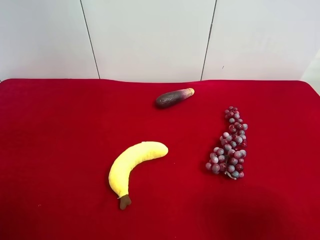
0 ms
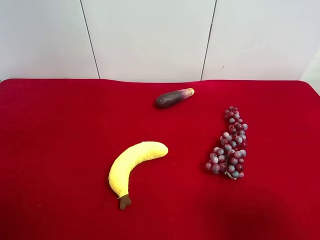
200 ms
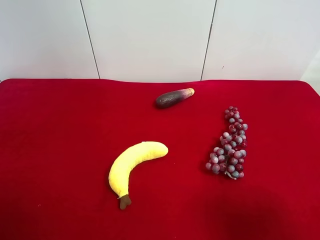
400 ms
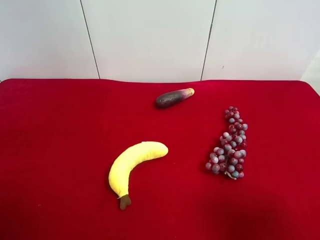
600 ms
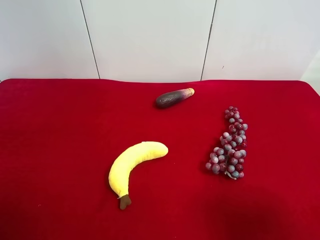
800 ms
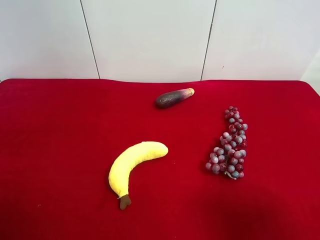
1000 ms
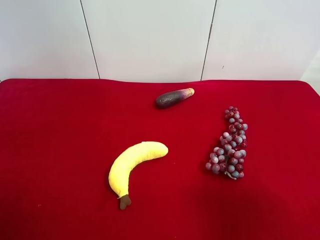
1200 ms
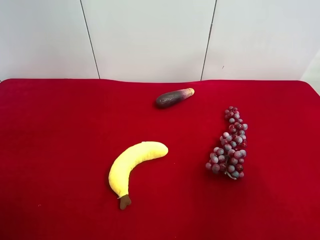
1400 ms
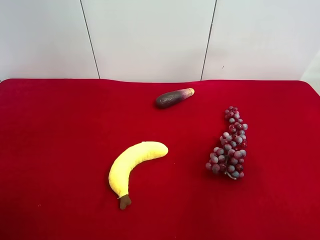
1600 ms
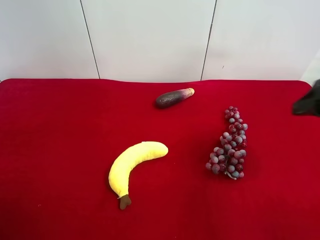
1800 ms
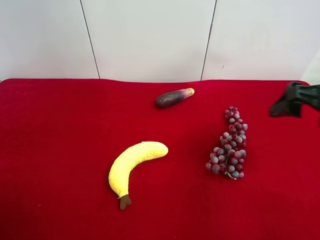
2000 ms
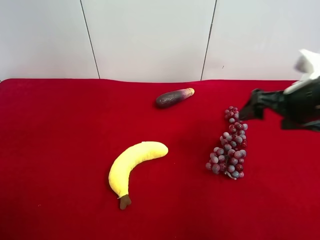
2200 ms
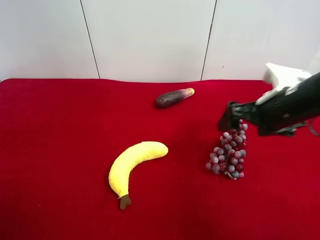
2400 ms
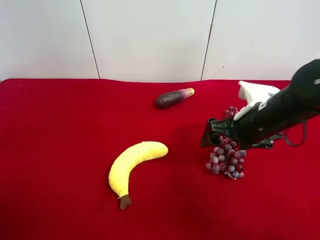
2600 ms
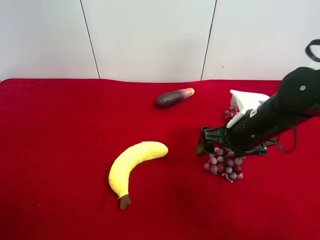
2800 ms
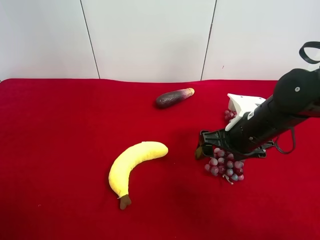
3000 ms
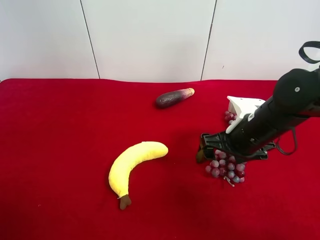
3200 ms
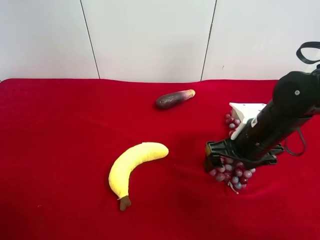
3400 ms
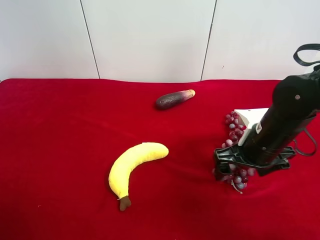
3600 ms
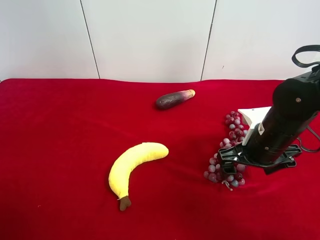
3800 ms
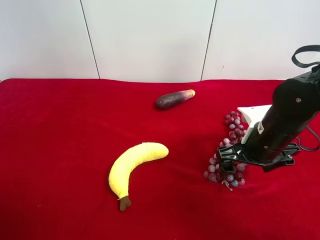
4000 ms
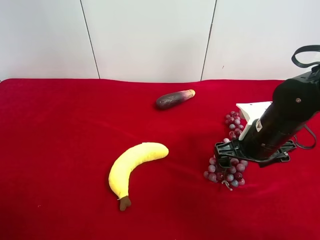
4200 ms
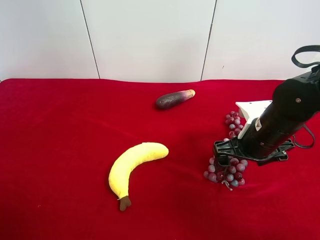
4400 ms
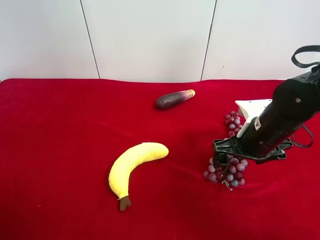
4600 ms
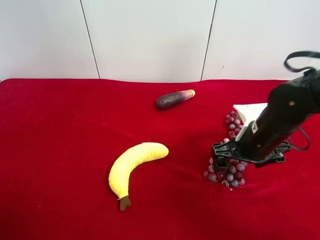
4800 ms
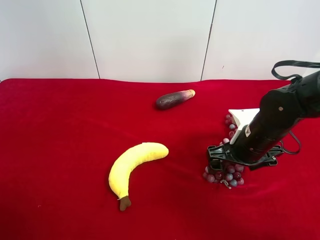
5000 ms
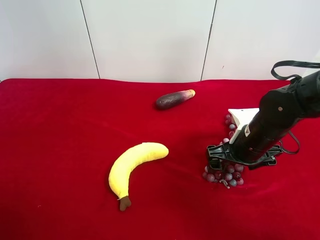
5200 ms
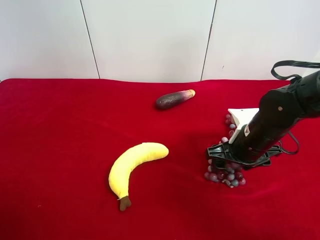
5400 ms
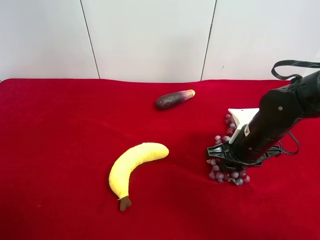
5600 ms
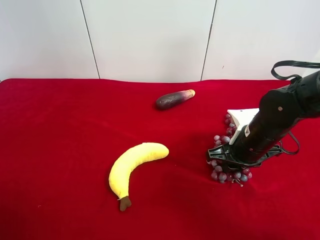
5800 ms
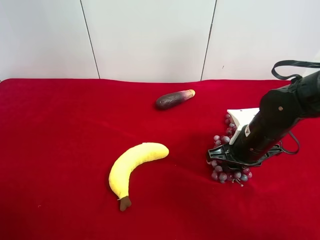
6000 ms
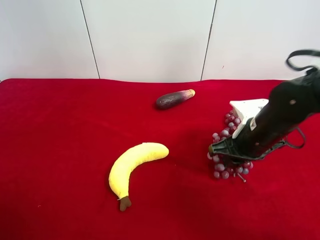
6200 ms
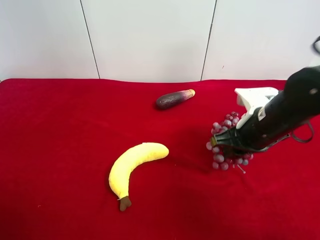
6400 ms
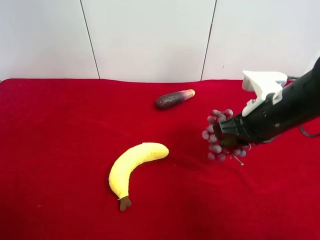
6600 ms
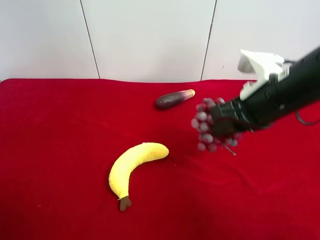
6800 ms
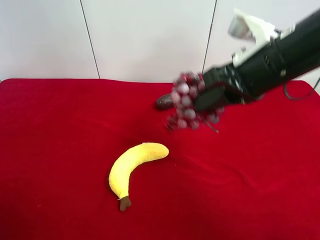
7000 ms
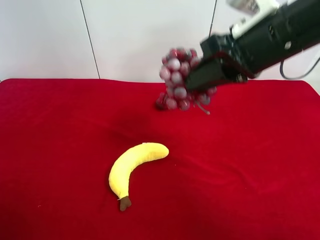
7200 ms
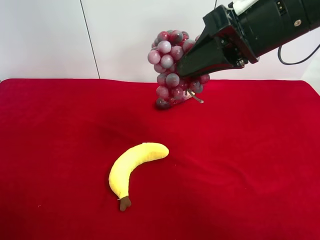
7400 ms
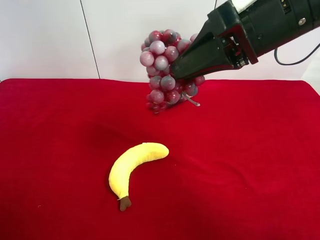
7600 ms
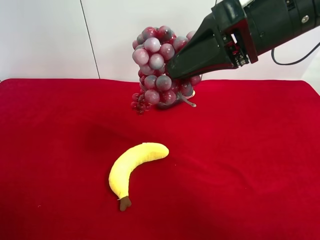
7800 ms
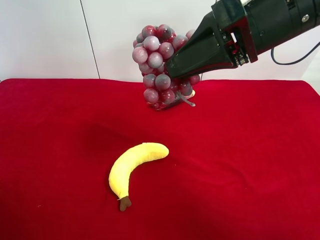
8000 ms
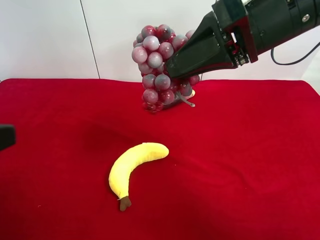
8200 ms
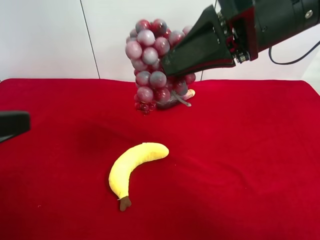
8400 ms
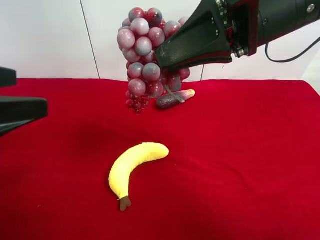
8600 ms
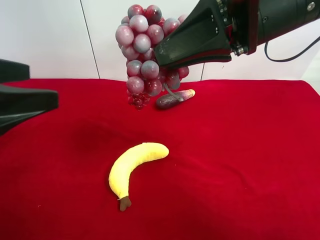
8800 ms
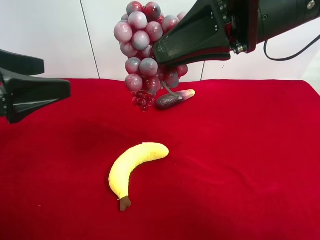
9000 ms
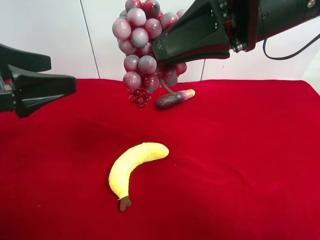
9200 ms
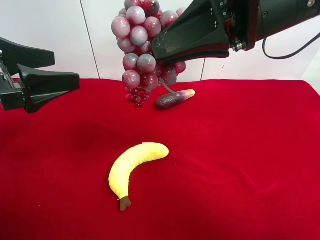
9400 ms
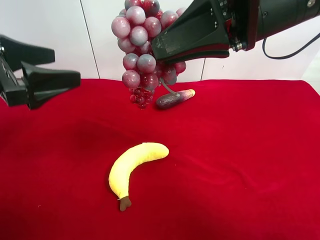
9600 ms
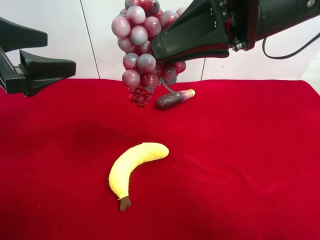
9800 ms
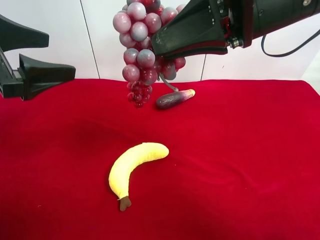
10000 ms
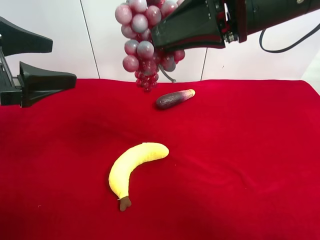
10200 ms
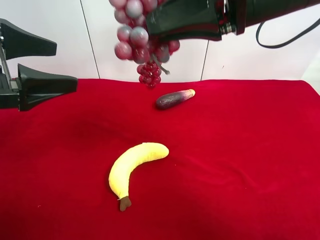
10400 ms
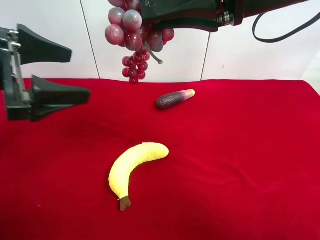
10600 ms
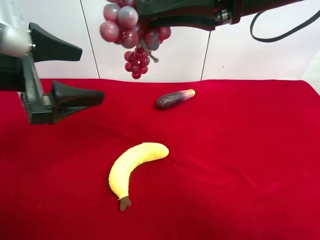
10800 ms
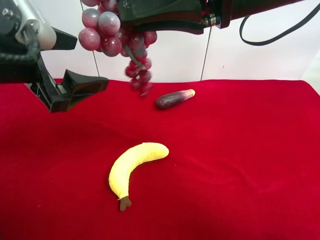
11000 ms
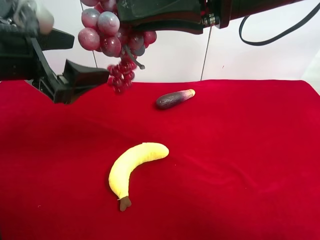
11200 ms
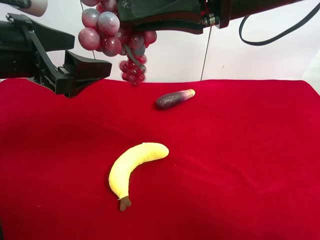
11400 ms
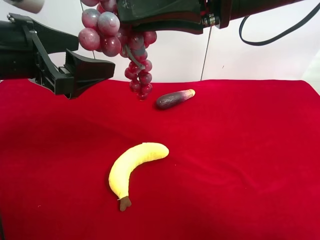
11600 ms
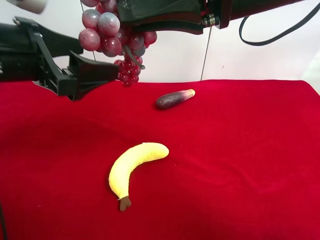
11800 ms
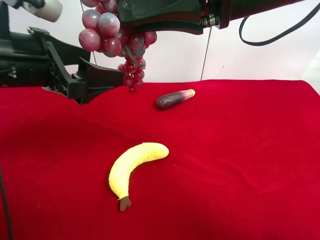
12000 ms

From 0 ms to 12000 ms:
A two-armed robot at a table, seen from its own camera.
Task of the whole recording: use the right gripper to pick up the item and transfer it from the right gripper to the left gripper.
Step, from 0 ms to 5600 ms: Use the right gripper to grab the grape on the right side of the table.
From 1600 ms to 3000 ms: The right gripper moves downward, forward and to the left, approximately 25 cm.
From 3000 ms to 4400 ms: There are only small adjustments of the grippers.
From 4400 ms to 6000 ms: The right gripper closes.
From 6000 ms to 7600 ms: The right gripper goes some 25 cm upward.
From 7600 ms to 9000 ms: The left gripper moves forward, approximately 15 cm.
From 9000 ms to 10400 ms: There are only small adjustments of the grippers.
From 10400 ms to 12000 ms: The left gripper goes some 5 cm to the right.

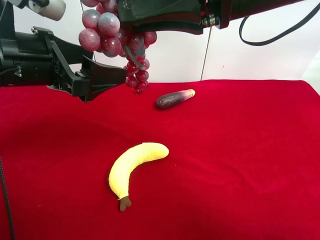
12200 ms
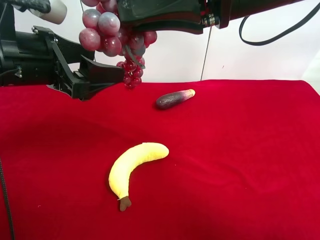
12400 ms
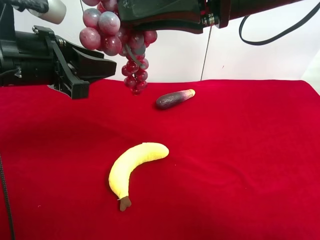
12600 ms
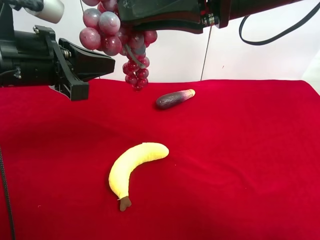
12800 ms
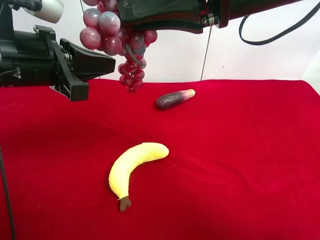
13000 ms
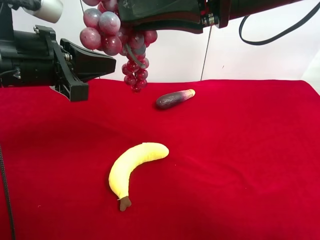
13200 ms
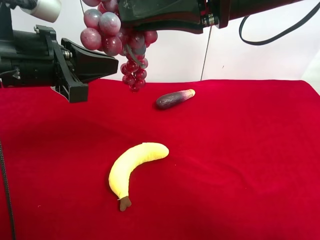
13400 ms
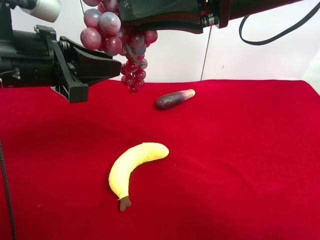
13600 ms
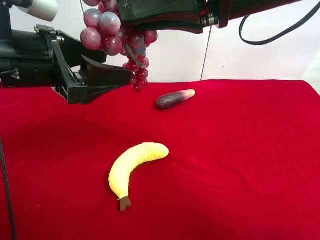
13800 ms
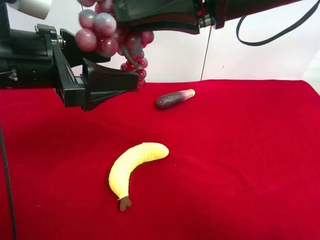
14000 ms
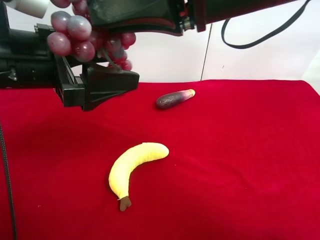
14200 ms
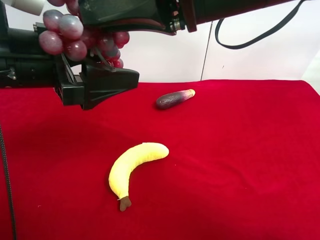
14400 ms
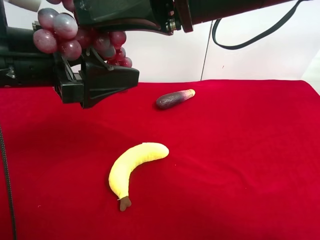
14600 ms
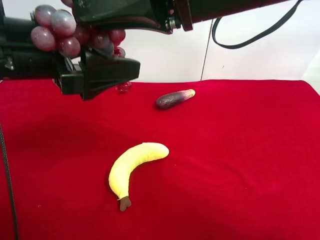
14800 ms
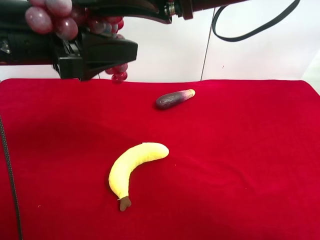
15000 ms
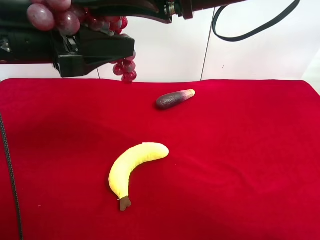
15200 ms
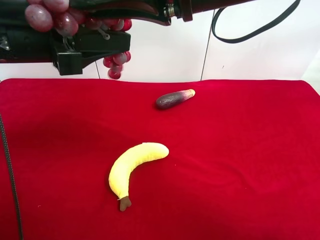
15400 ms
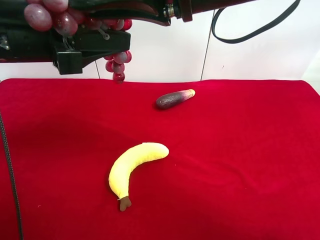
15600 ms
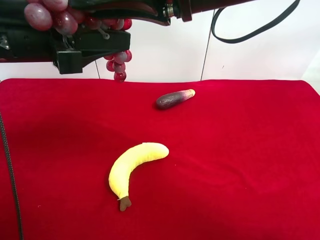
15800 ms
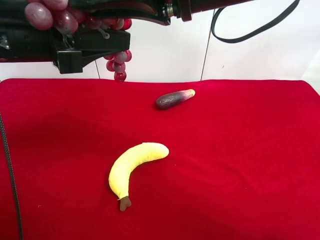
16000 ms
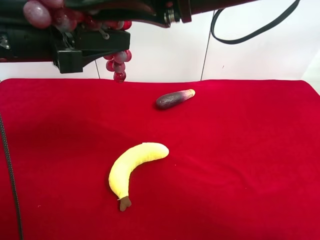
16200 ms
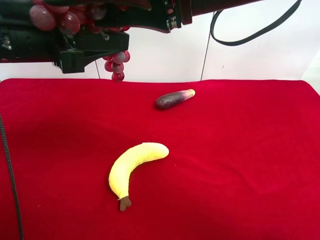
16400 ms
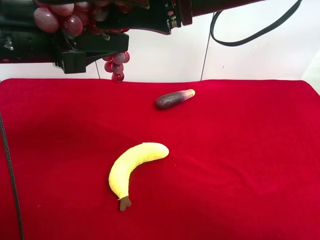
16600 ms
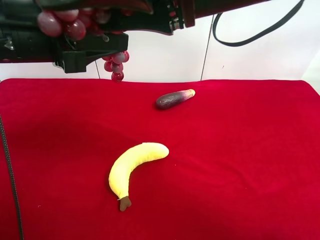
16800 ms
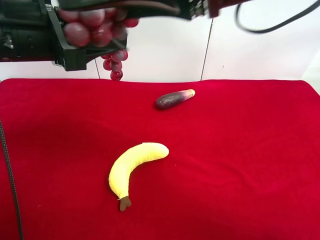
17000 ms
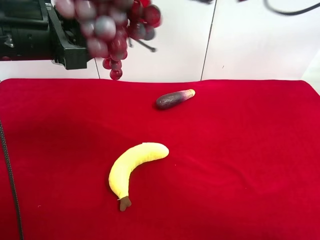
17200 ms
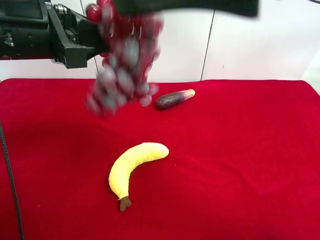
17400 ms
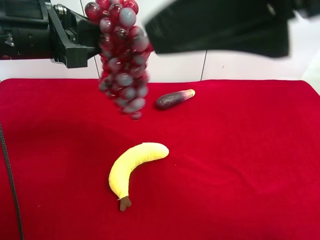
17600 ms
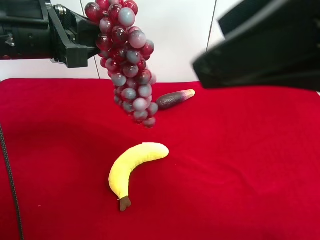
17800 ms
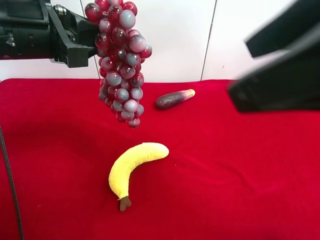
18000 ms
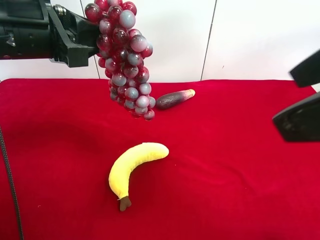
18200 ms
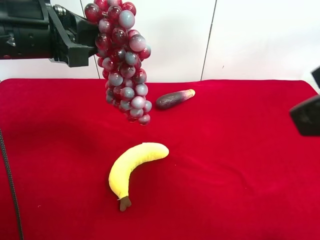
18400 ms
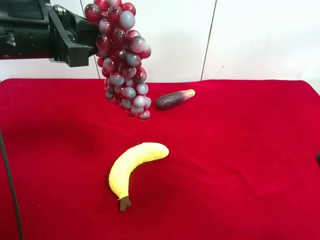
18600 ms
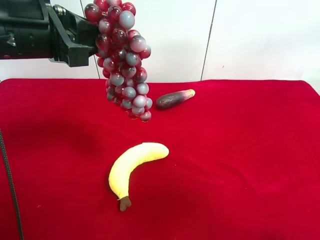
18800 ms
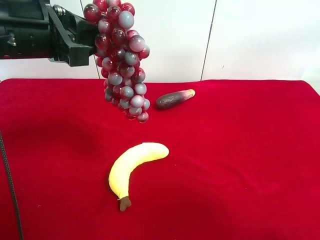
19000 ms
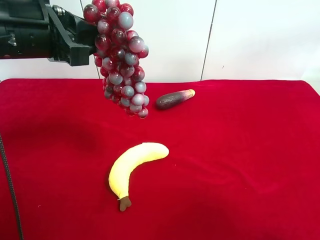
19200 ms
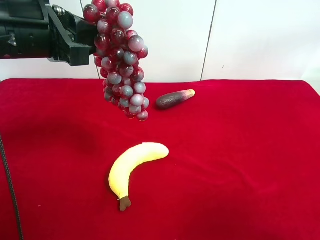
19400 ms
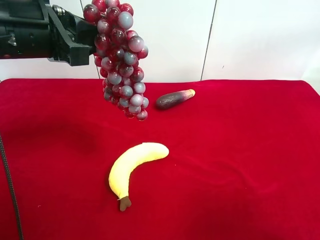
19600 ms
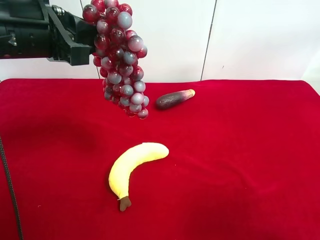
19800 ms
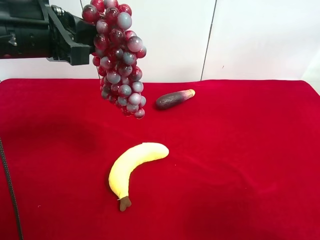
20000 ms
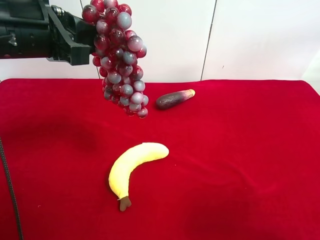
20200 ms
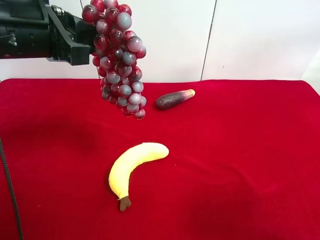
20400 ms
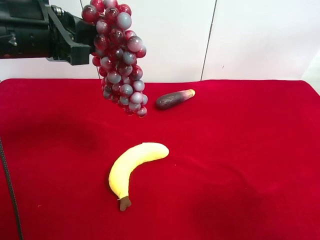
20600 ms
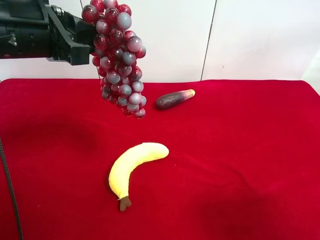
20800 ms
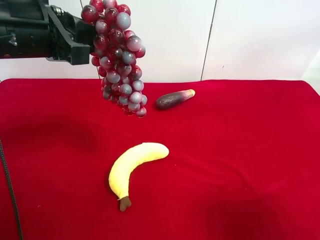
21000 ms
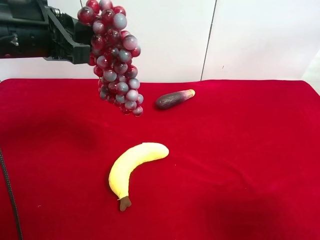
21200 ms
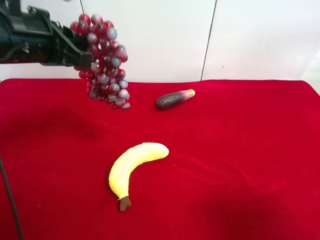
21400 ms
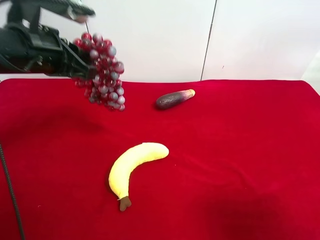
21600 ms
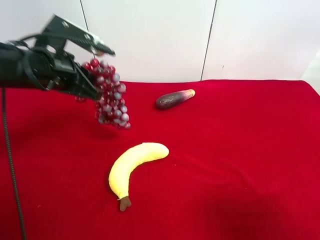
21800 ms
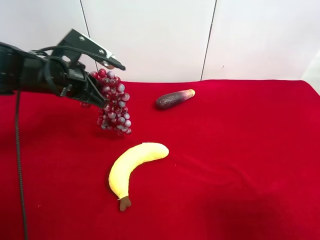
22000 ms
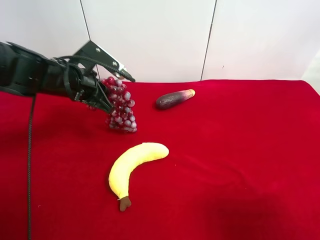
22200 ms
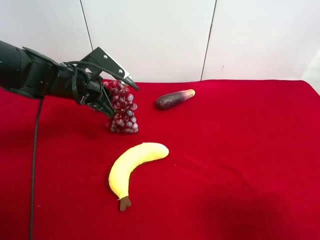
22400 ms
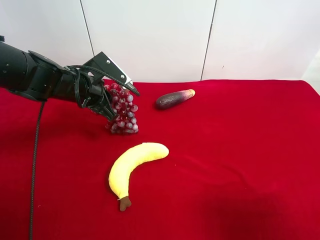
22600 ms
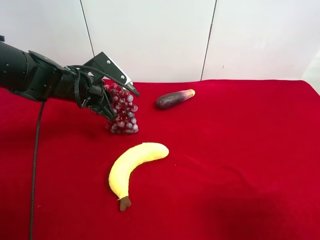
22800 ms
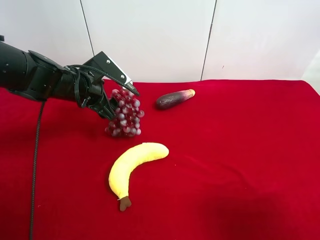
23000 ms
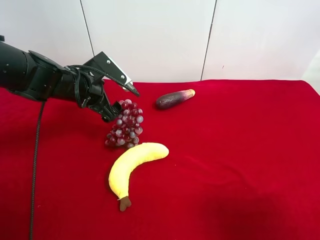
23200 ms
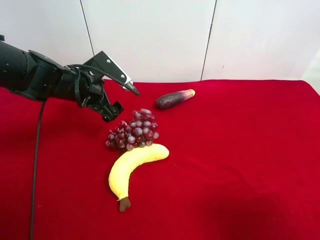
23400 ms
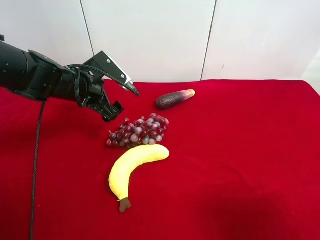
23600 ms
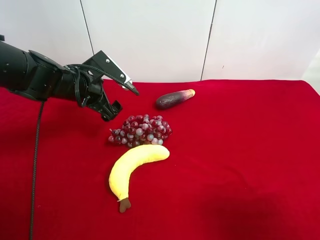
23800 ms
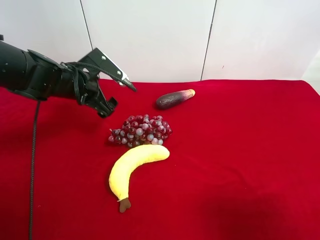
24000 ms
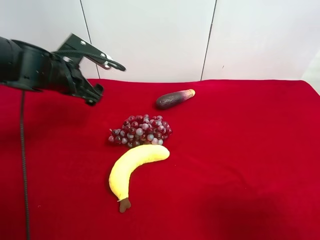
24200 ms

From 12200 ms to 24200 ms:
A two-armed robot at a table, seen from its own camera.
Task of the whole recording: use the right gripper to pick up the item and transfer it from the right gripper to the left gripper.
Step, from 12200 ms to 17200 ms: Pass the grape to the left gripper.
Step, from 17400 ms to 23400 ms: The left gripper places grape on the left side of the table.
From 12200 ms to 13800 ms: The left gripper closes, then reopens.
From 13800 ms to 15200 ms: The left gripper closes up.
From 15200 ms to 16600 ms: The right gripper opens its fingers.
From 16600 ms to 18200 ms: The right gripper moves to the right and backward, approximately 15 cm.
From 18200 ms to 19800 ms: The right gripper moves downward, to the right and backward, about 15 cm.
From 21200 ms to 22600 ms: The left gripper is displaced downward and forward by approximately 20 cm.
From 22600 ms to 24200 ms: The left gripper opens up.
